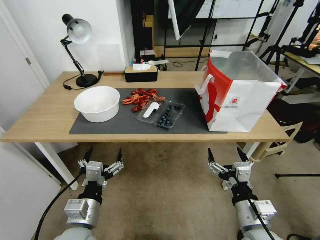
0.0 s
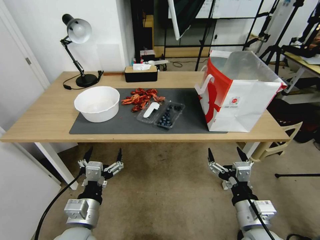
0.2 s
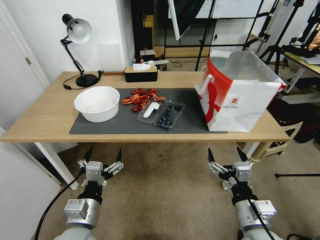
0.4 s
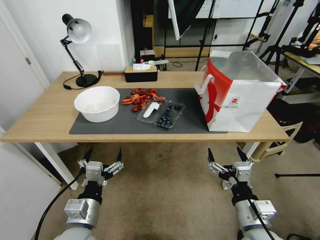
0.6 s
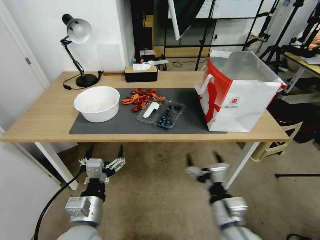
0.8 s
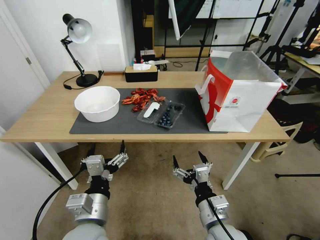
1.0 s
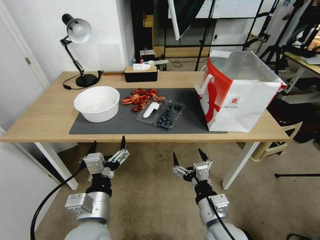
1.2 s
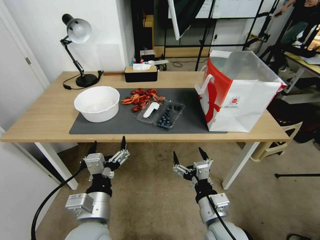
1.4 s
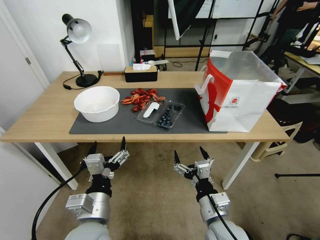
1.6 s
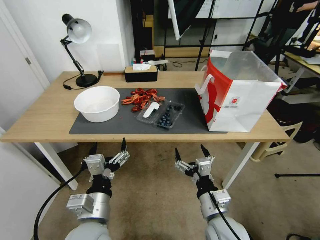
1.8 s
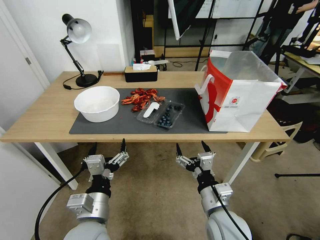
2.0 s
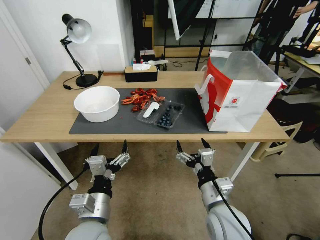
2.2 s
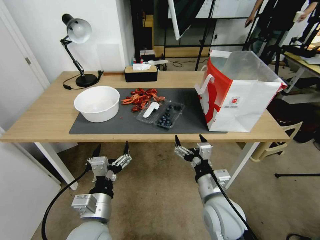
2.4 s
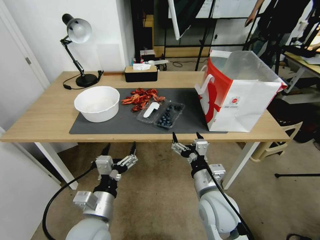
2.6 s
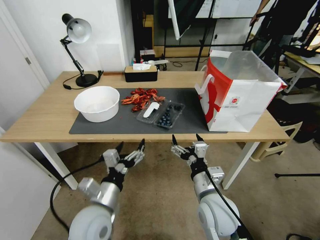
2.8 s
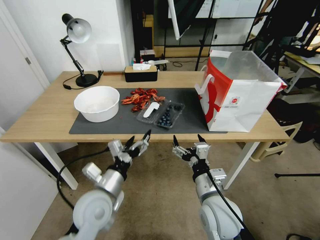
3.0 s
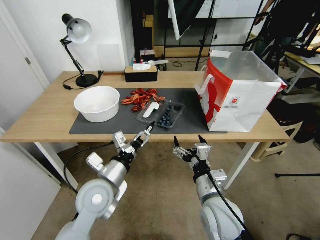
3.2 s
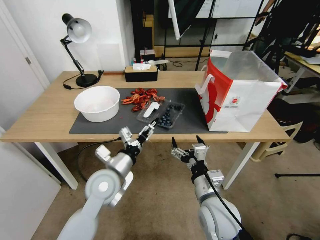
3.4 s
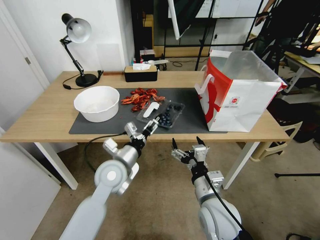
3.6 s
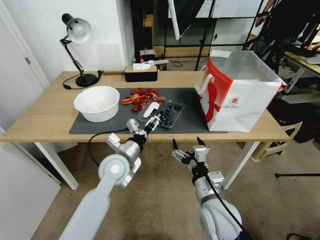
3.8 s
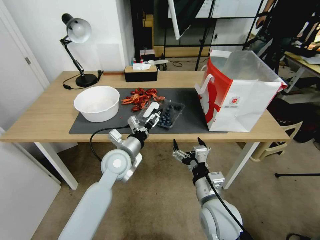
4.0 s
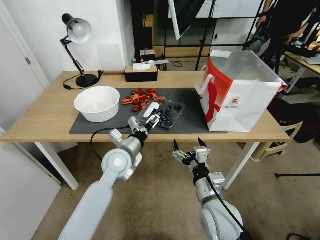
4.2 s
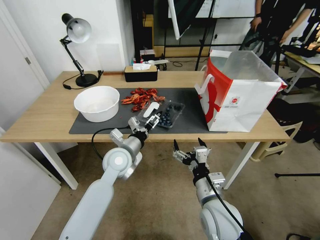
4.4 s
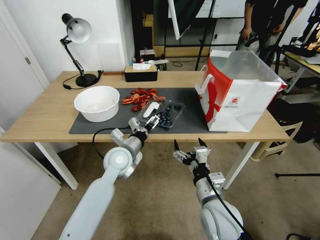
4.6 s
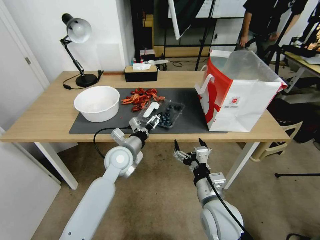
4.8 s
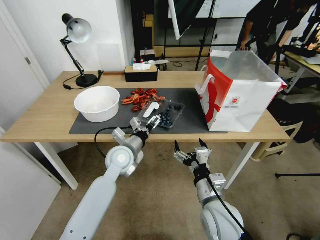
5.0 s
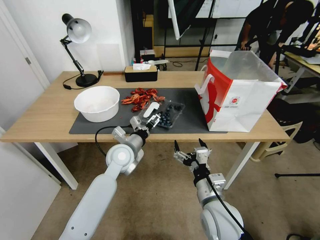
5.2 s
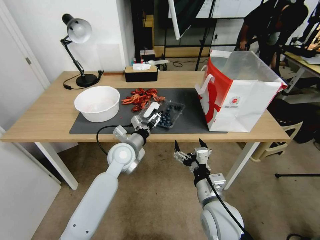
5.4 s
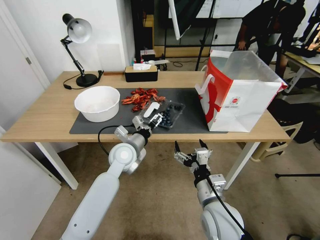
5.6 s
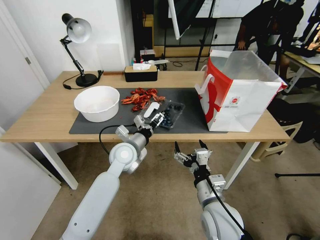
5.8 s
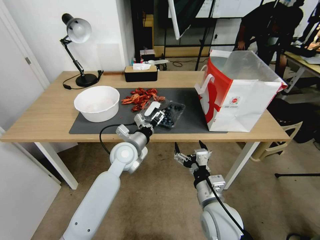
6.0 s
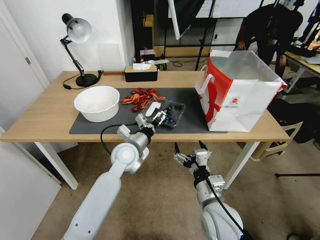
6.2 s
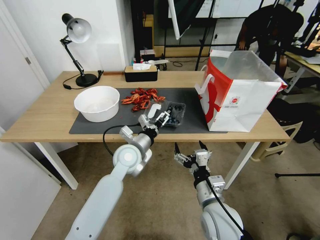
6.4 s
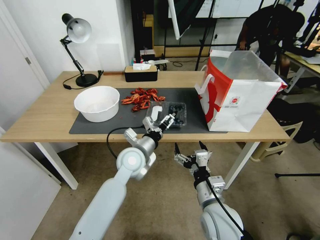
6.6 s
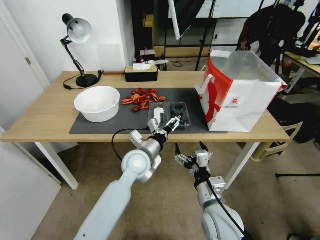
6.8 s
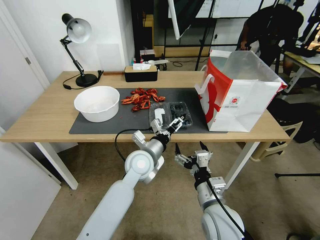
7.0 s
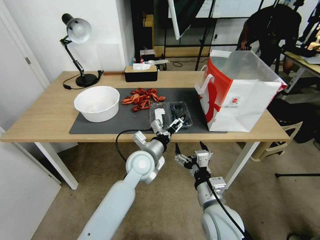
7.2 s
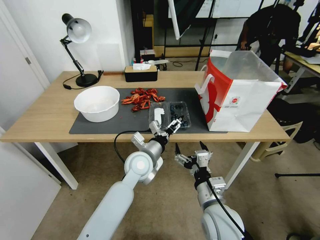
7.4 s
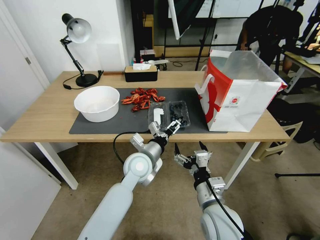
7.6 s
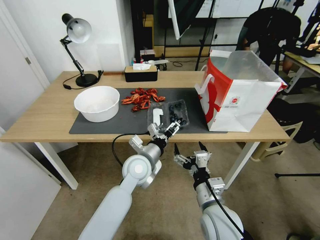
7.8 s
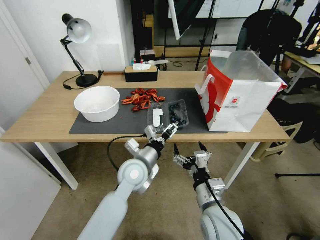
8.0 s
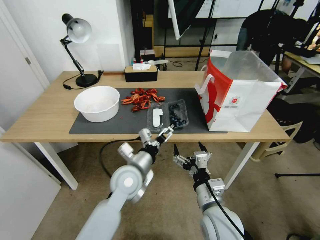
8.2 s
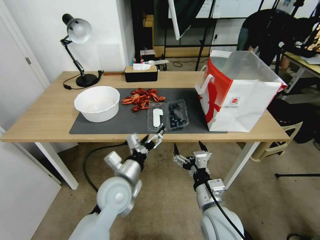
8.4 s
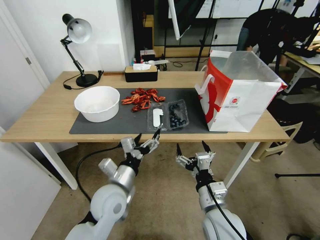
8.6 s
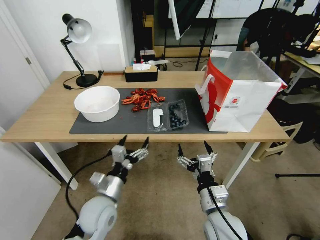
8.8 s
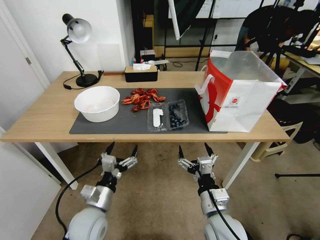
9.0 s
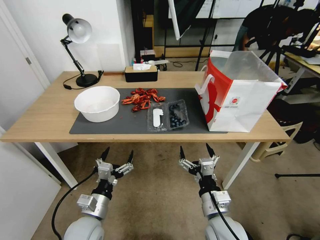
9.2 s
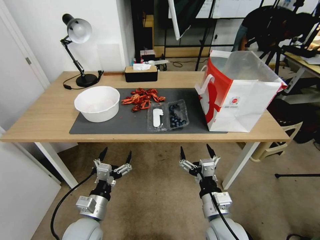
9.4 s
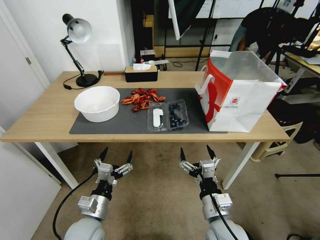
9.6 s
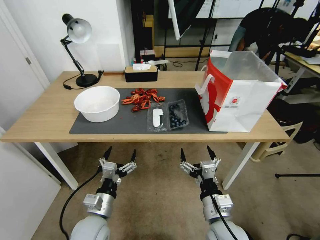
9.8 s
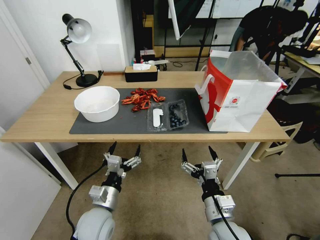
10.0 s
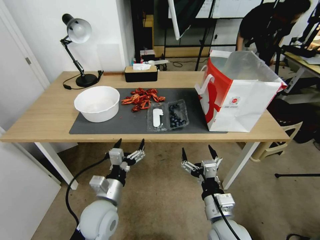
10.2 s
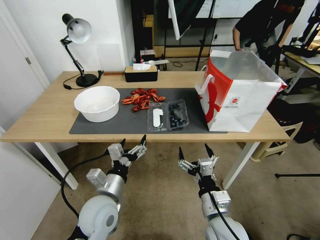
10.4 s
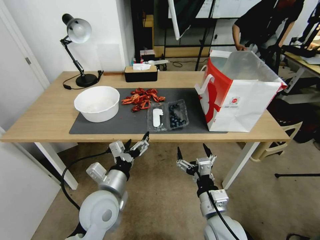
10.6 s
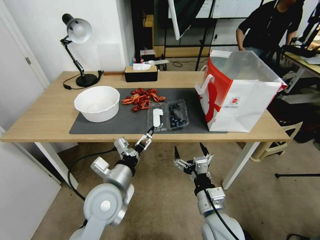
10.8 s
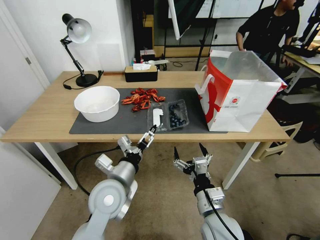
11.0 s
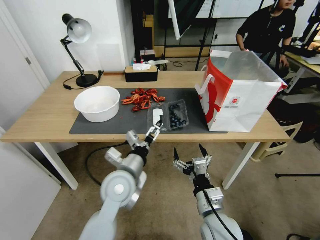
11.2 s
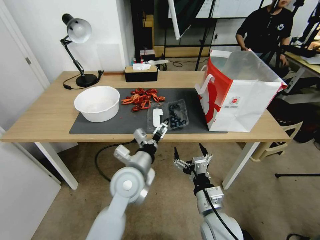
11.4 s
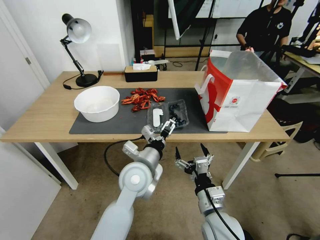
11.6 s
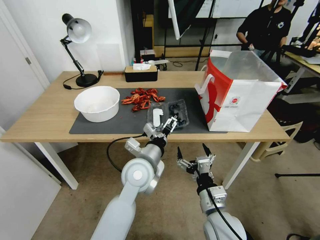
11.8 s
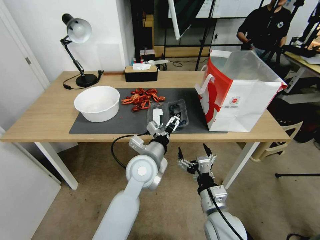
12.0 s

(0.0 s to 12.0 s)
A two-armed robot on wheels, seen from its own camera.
Task of the whole recording: Close the takeout container lid, then place the container into the takeout bag.
1.6 s - 3.0 s: The two grippers go approximately 5 cm forward.
3.0 s - 4.4 s: The left gripper goes approximately 15 cm forward.
4.4 s - 6.0 s: There are only small adjustments of the grippers.
6.0 s - 7.6 s: The left gripper heads to the right, covering about 5 cm.
7.6 s - 9.0 s: The left gripper moves backward, to the left and downward, roughly 20 cm.
9.0 s - 10.4 s: The left gripper is displaced upward by roughly 5 cm.
10.4 s - 12.0 s: The left gripper goes approximately 15 cm to the right and forward.

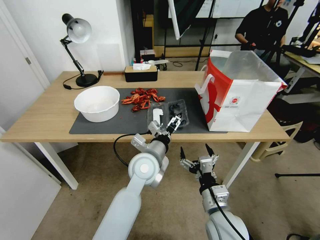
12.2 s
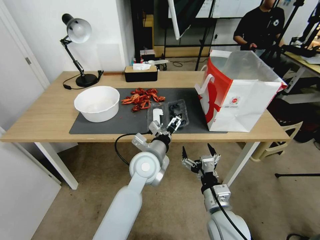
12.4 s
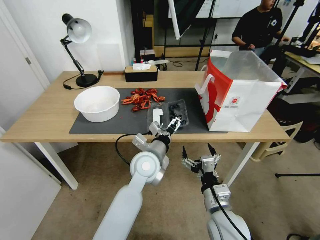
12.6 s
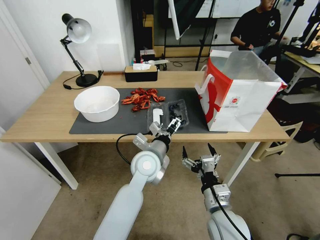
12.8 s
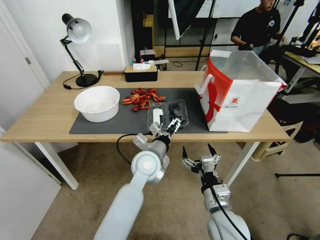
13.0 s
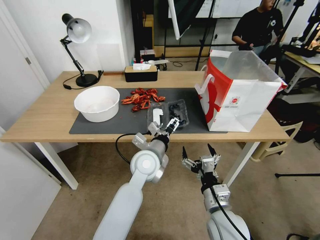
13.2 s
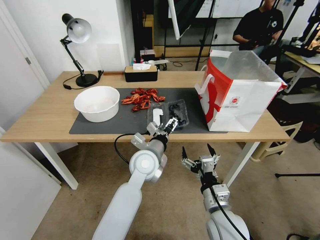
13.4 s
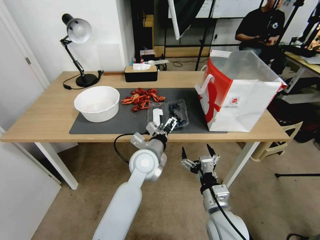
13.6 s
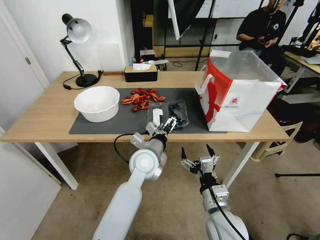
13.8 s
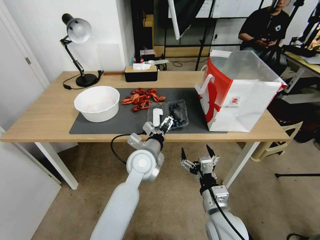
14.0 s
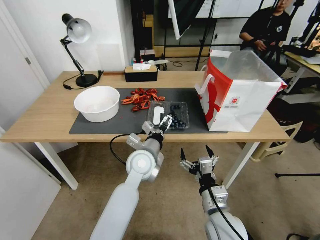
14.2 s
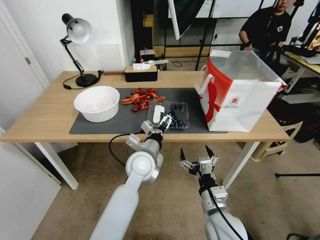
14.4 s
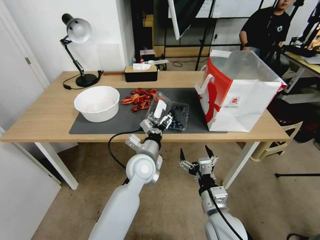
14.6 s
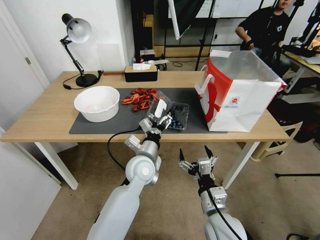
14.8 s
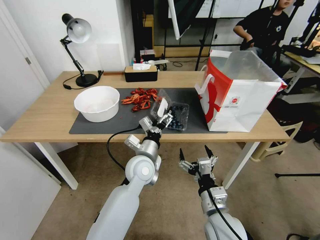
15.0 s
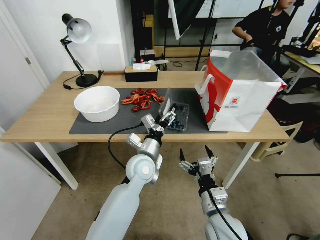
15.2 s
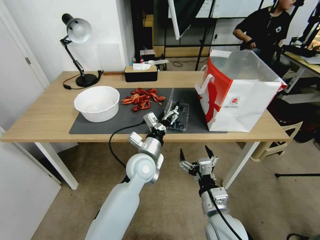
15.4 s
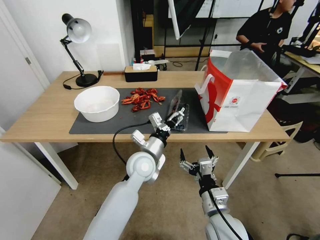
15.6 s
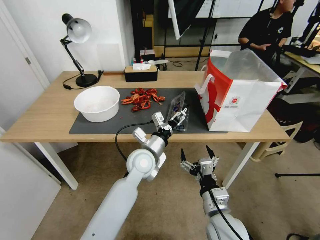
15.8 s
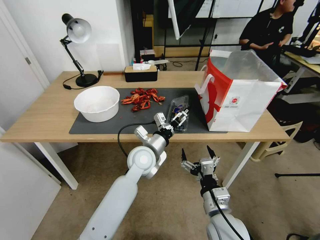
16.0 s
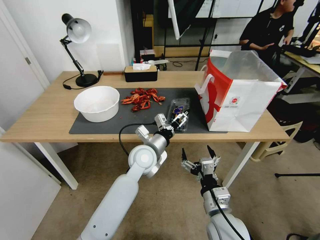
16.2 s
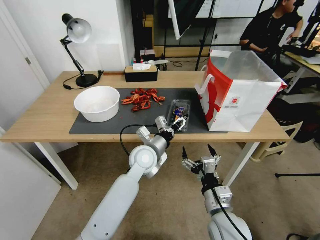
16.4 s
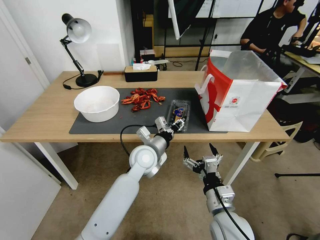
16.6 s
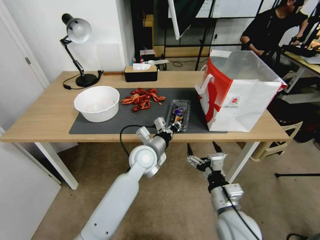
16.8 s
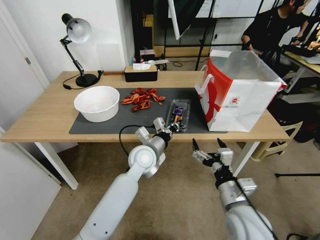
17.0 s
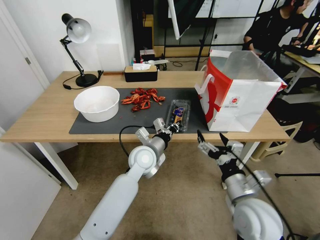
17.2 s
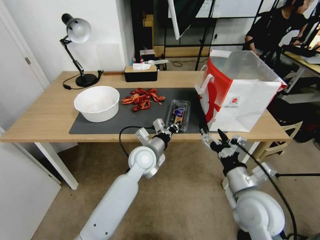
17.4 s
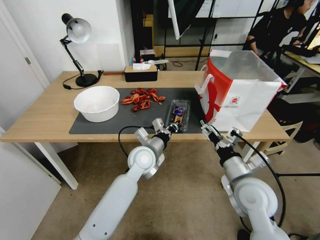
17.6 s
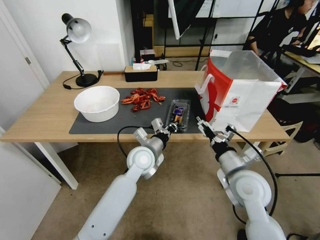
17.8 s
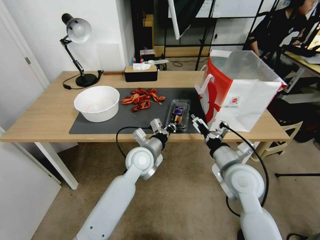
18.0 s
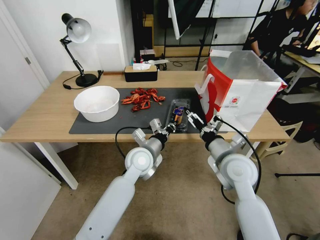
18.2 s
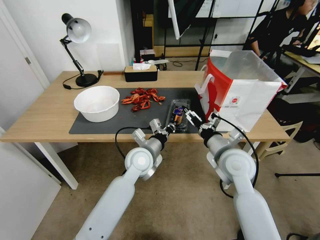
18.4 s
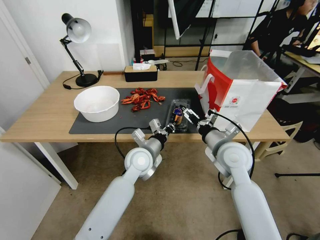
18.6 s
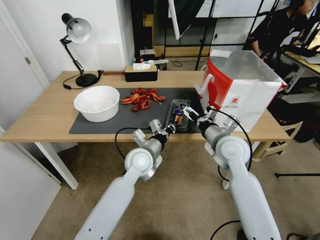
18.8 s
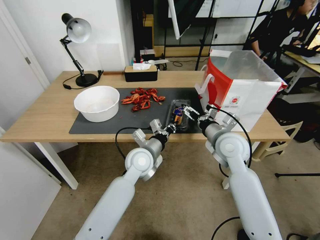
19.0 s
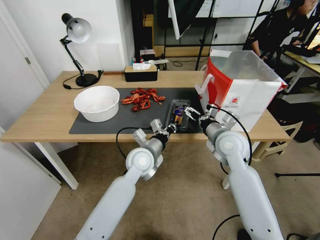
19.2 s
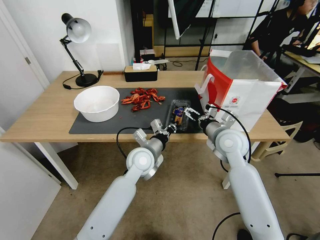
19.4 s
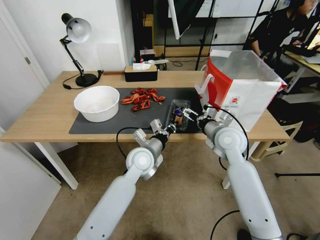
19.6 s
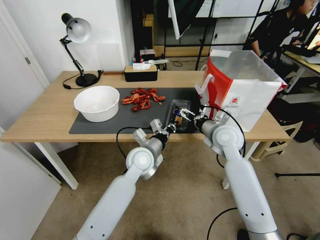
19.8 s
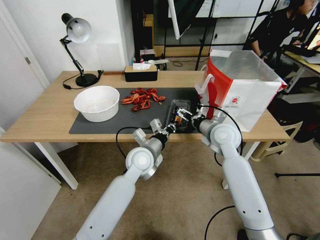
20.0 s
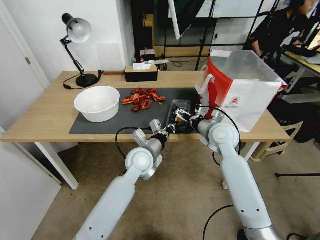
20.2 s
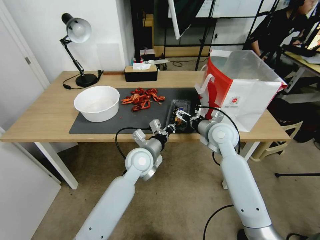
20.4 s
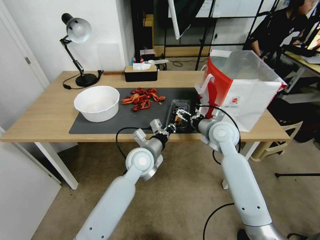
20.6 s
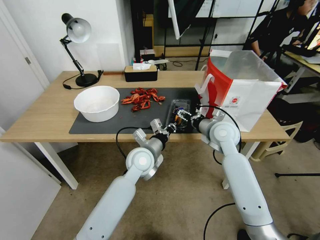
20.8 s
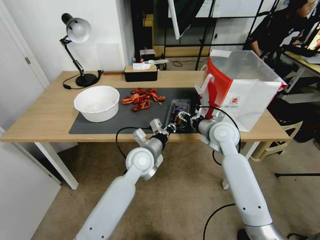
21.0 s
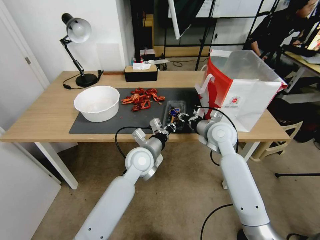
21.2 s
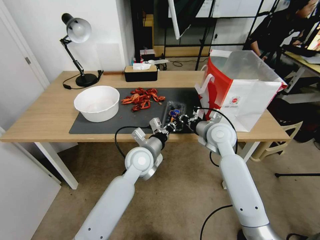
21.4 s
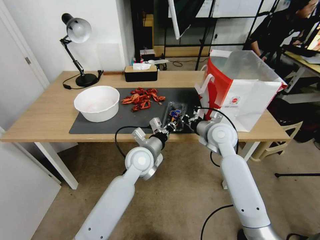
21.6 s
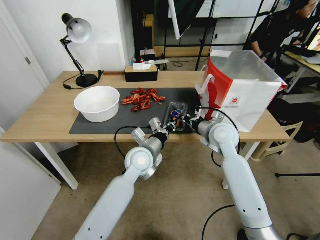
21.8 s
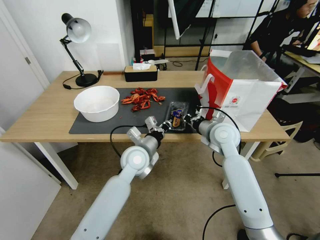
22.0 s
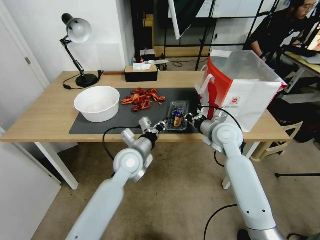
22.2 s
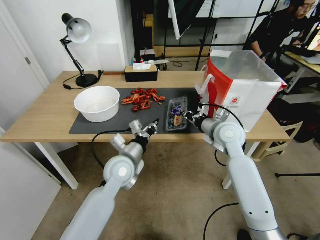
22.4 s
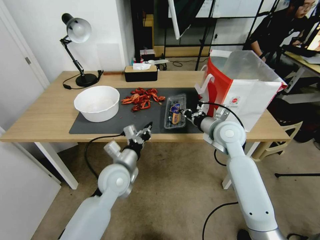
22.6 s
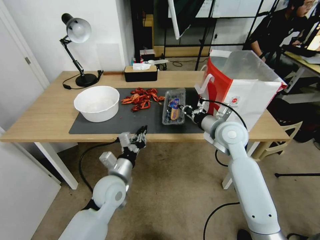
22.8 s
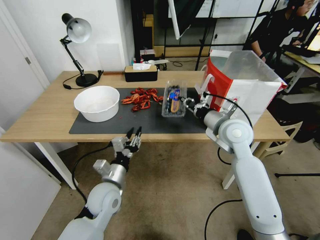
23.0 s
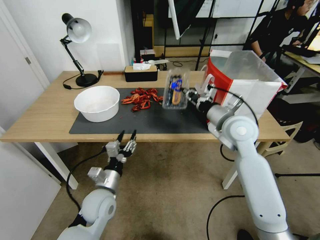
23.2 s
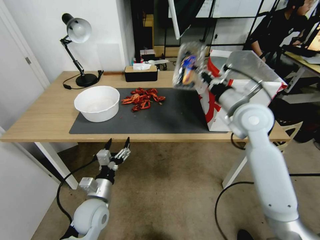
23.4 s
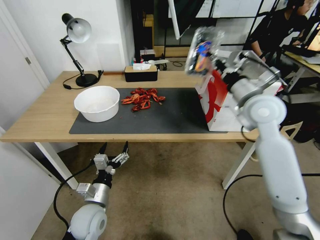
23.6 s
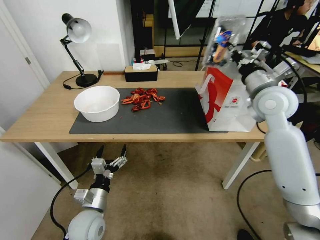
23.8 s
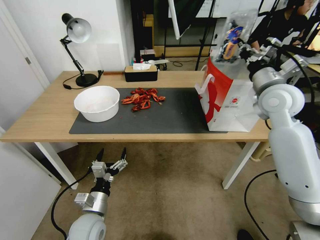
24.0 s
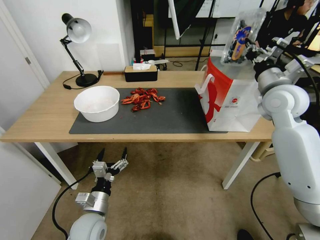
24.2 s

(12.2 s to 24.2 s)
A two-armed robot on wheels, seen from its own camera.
Task of the whole recording: Close the takeout container lid, then place the container into the takeout bag.
12.2 s - 13.8 s: There are only small adjustments of the grippers.
15.2 s - 16.6 s: The left gripper closes its fingers.
16.6 s - 18.2 s: The left gripper closes. Meanwhile the right gripper moves forward and upward, approximately 15 cm.
18.2 s - 19.8 s: The right gripper goes approximately 10 cm forward.
19.8 s - 21.2 s: The right gripper closes up.
21.2 s - 22.6 s: The left gripper shifts some 10 cm to the left and backward.
22.6 s - 24.2 s: The right gripper goes approximately 15 cm upward and to the right, while the left gripper heads backward, downward and to the left, covering about 15 cm, and opens up.
